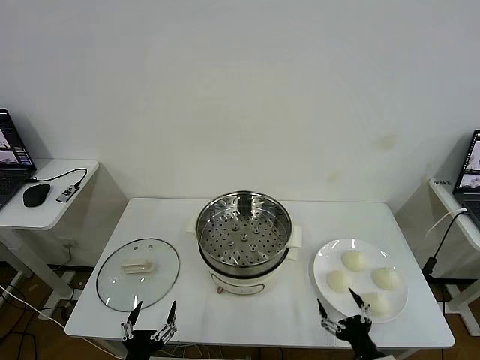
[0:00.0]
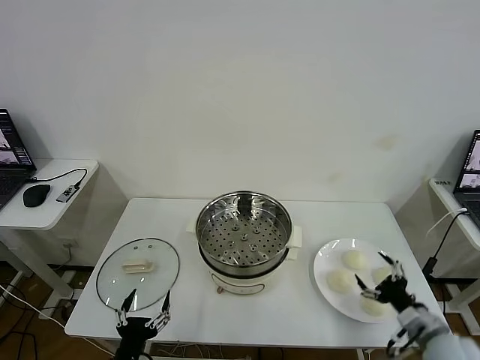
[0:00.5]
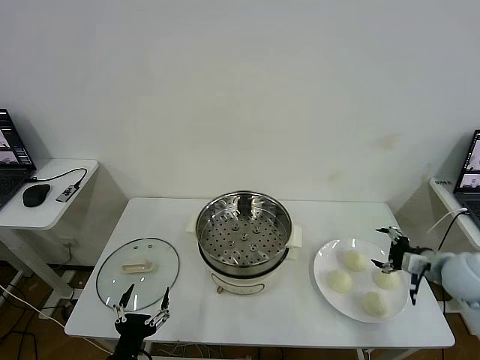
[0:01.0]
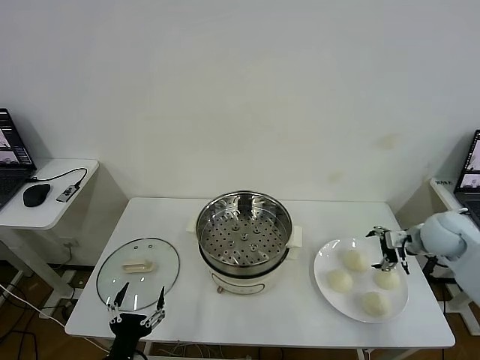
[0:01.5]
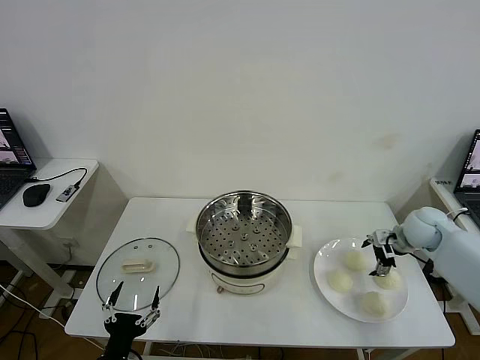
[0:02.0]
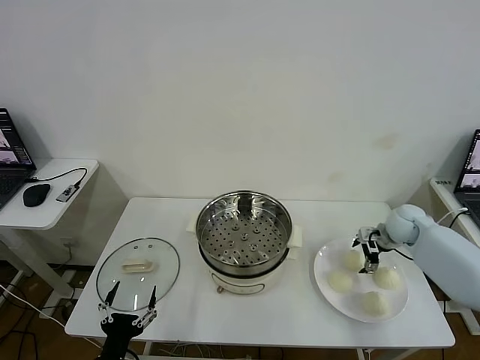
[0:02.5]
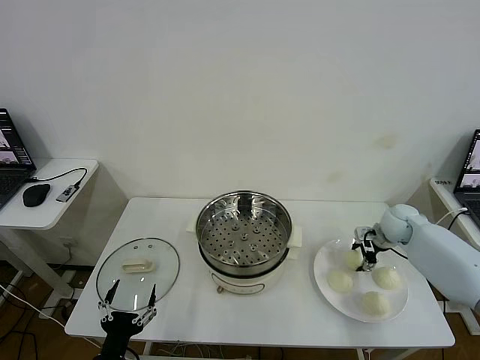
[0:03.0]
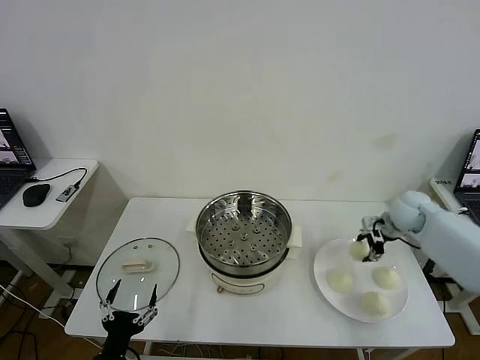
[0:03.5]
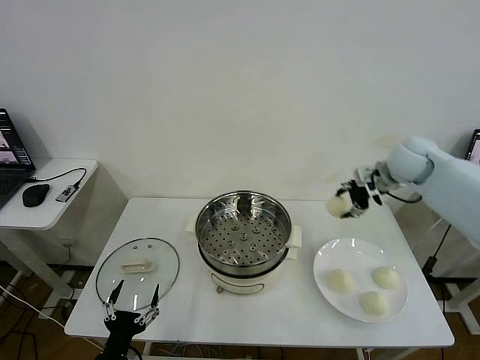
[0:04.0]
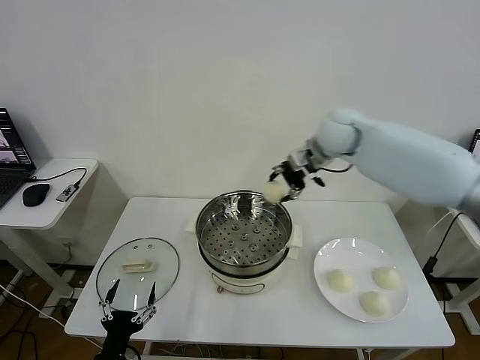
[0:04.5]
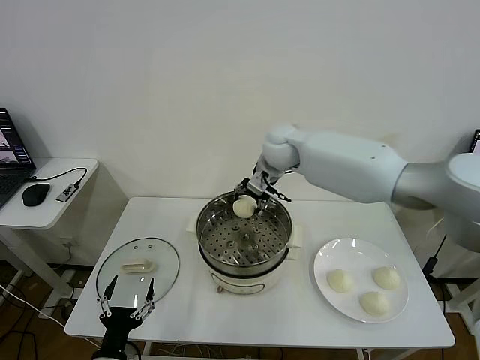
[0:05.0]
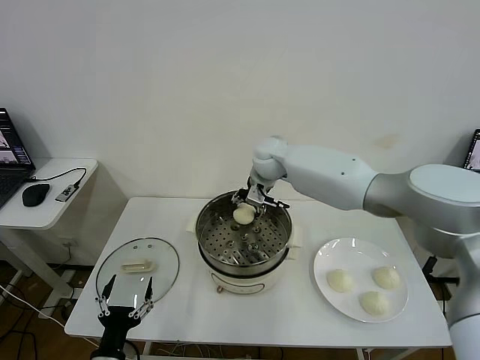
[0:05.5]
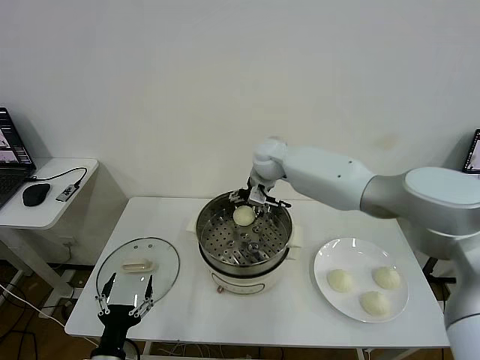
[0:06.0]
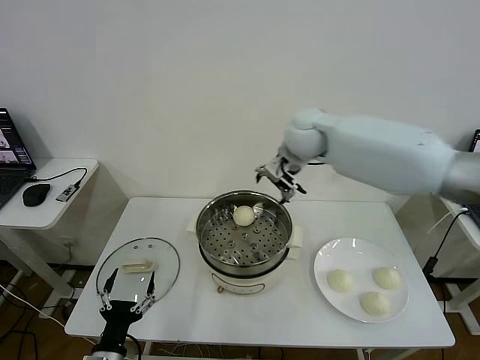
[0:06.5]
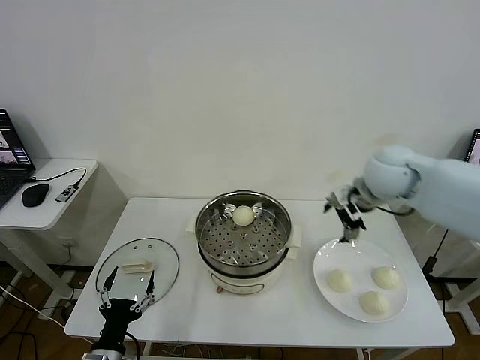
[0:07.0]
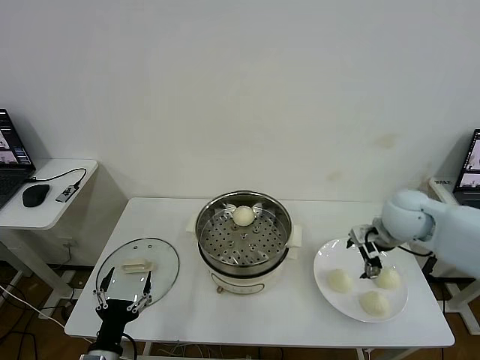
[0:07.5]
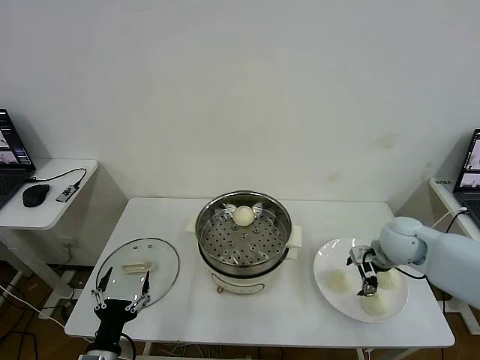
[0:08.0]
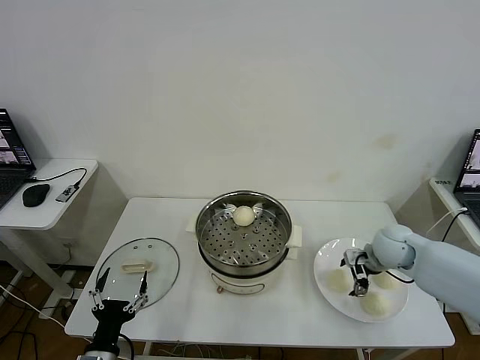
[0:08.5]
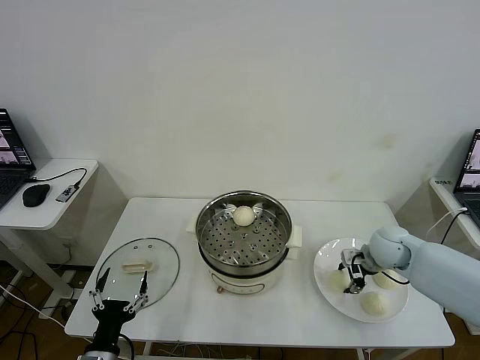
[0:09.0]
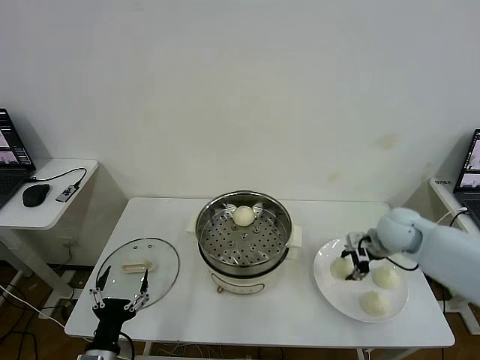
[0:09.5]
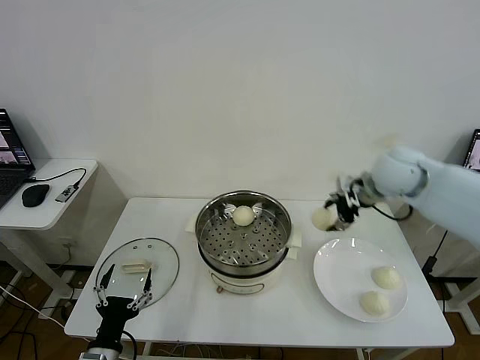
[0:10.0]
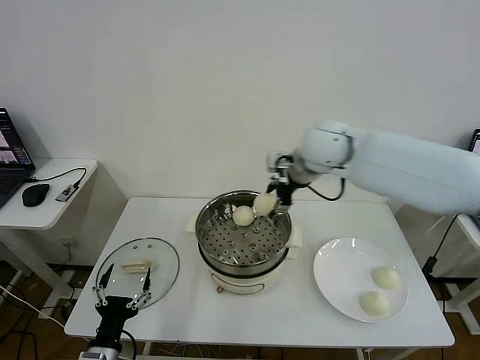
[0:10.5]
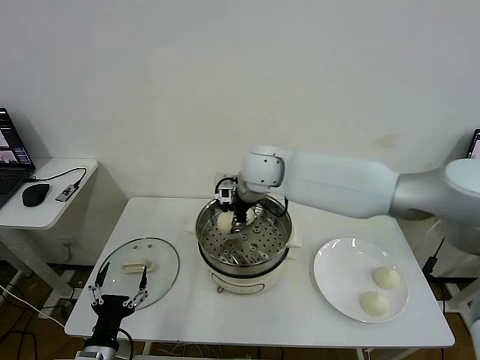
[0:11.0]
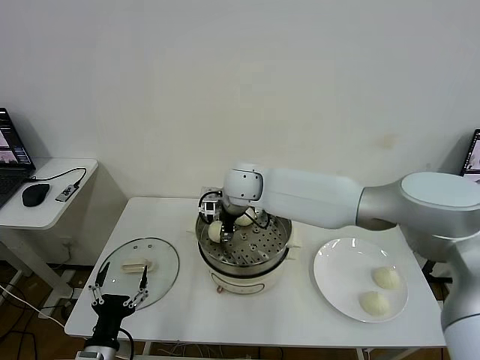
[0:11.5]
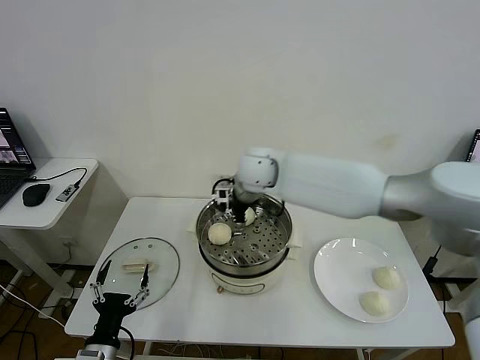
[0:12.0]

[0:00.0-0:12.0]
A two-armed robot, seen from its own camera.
Task of the whole recording: take steamed baozi put them in steamer then cover it.
Step, 0:00.0 to 0:03.0: Grasp the baozi in the plate with right gripper.
Step, 0:03.5 to 0:06.0: Place the baozi on the steamer with right gripper.
Step, 0:06.5 to 0:09.0: Grasp the baozi in the plate with right gripper.
Step, 0:09.5 to 0:11.5: Place the baozi on the steamer with right gripper.
0:02.0 to 0:04.0: The right gripper is displaced upward and to the left by about 20 cm, and closes.
0:04.0 to 0:06.0: The right gripper moves to the left, some 25 cm, and opens up.
0:06.0 to 0:08.0: The right gripper is displaced to the right, backward and downward by some 35 cm.
0:08.0 to 0:10.0: The right gripper travels upward by roughly 15 cm, and closes up.
0:10.0 to 0:12.0: The right gripper moves to the left, some 25 cm, and opens.

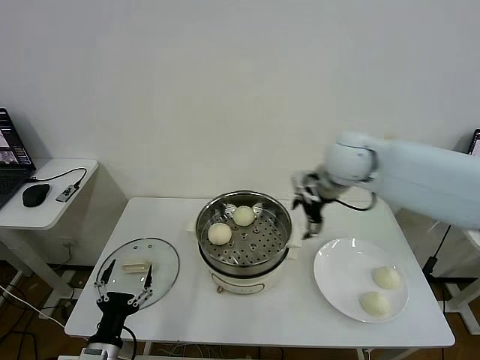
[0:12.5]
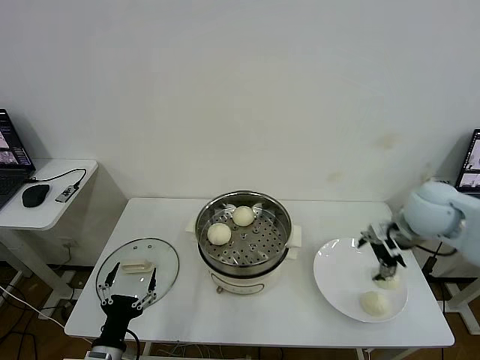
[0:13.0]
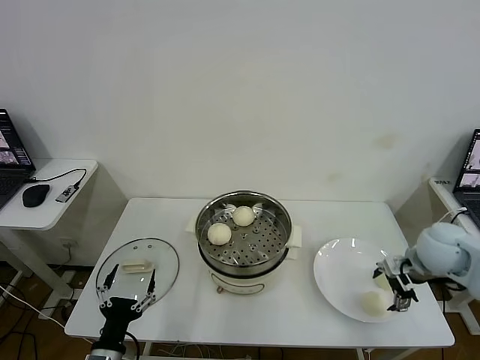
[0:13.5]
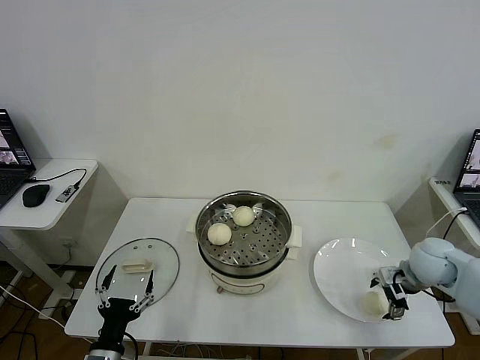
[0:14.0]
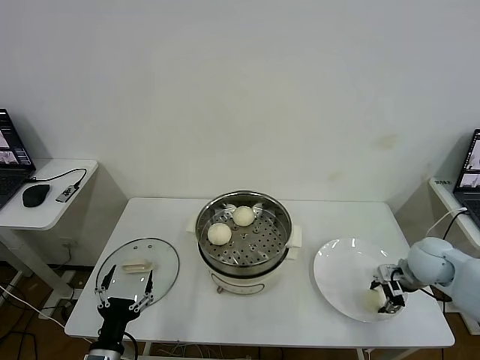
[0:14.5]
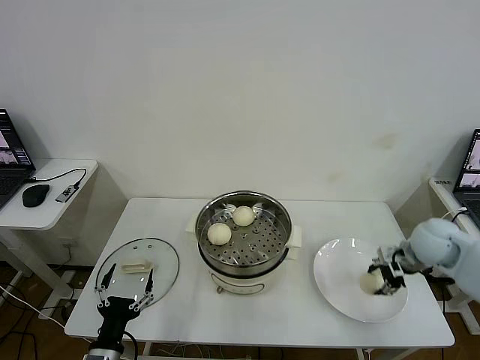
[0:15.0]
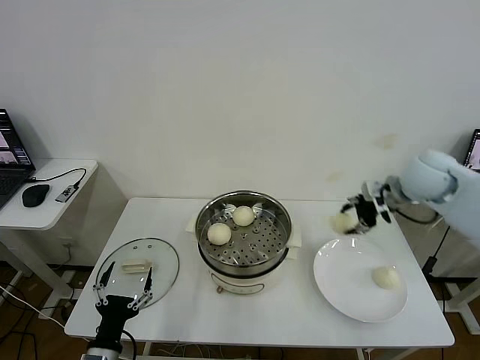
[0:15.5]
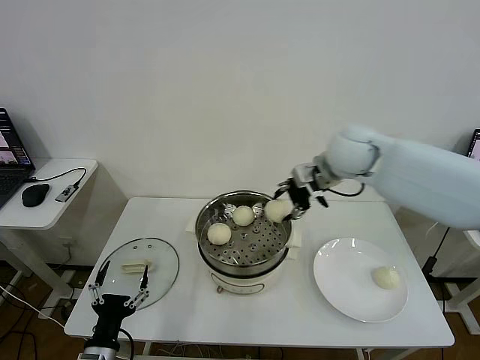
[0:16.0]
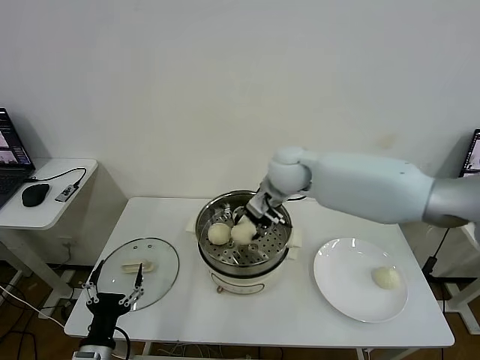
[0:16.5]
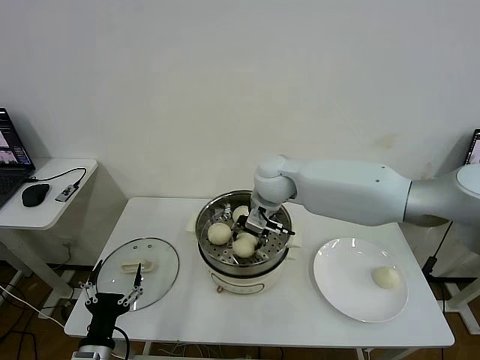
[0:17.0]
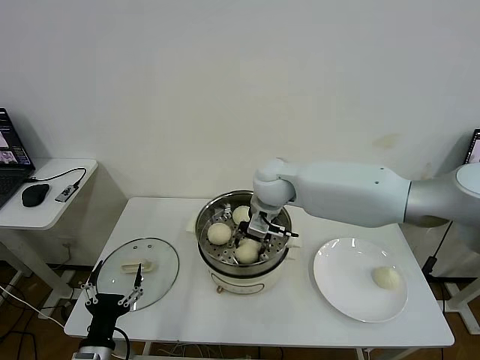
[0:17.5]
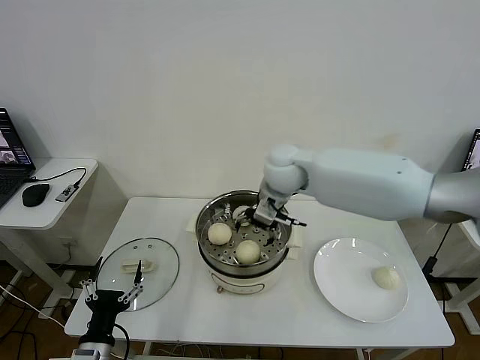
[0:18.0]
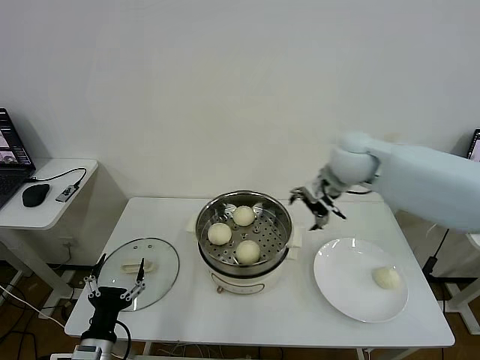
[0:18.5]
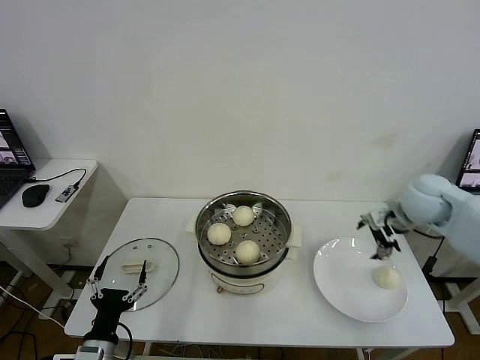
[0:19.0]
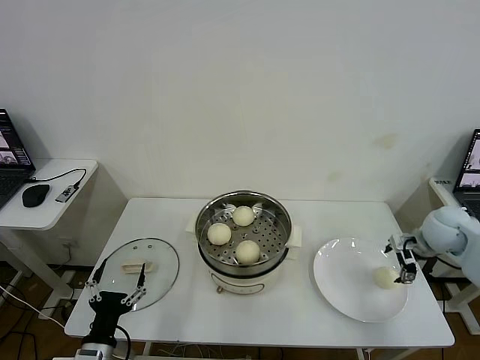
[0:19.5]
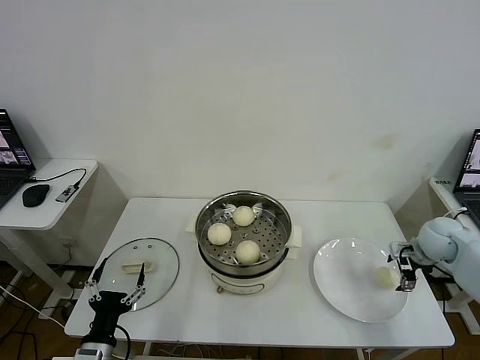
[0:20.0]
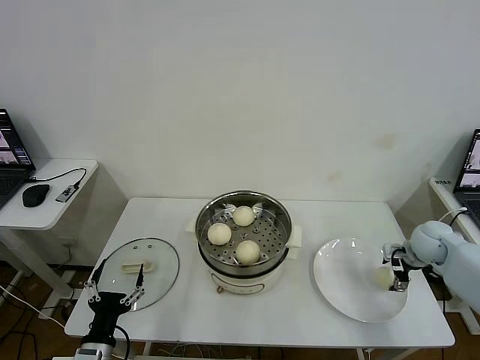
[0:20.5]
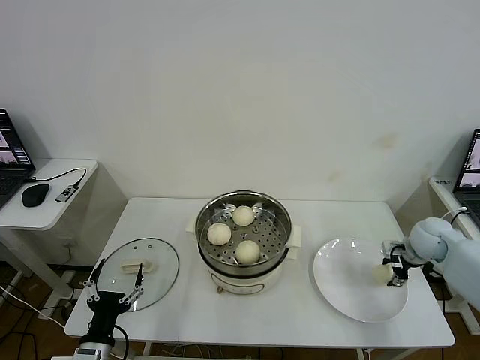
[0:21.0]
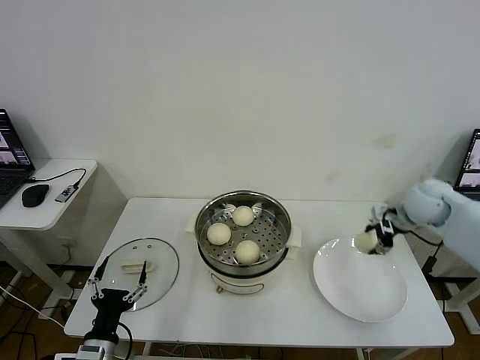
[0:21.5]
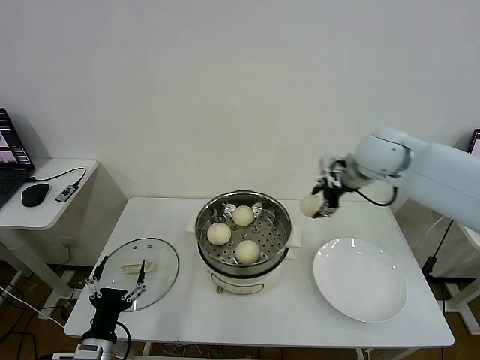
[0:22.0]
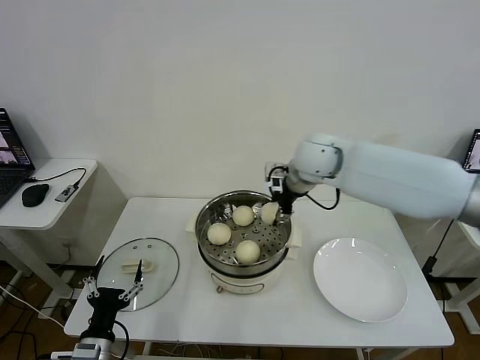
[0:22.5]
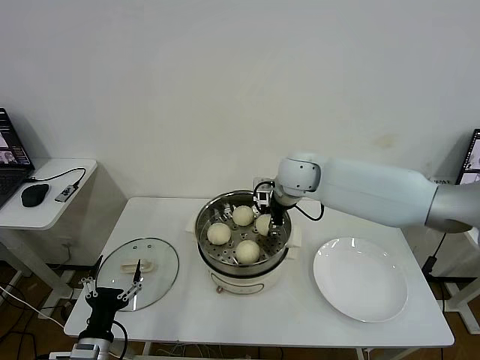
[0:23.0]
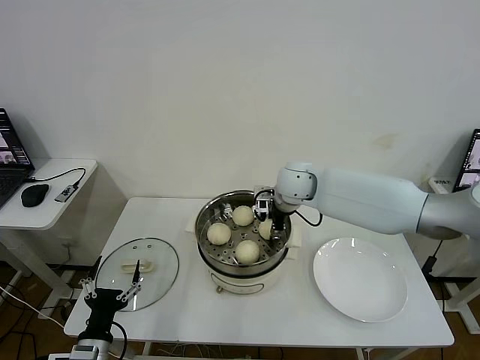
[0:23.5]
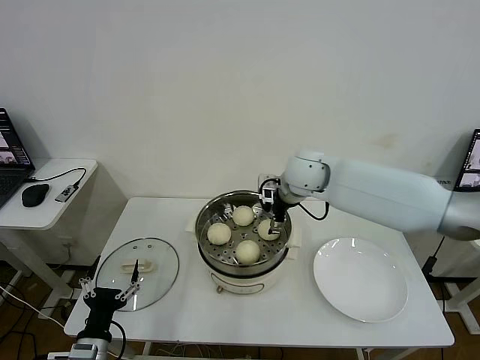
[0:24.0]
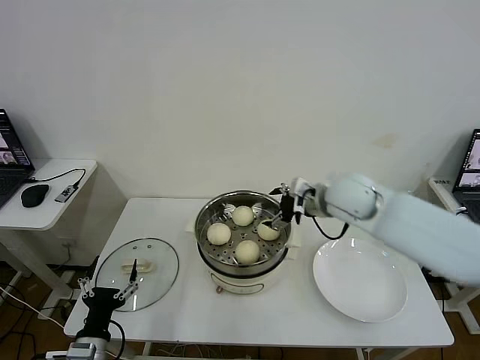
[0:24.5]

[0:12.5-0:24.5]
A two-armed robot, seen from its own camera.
Task of the whole recording: take steamed baozi put them in steamer then cover it.
Step, 0:12.5 to 0:14.5: Grasp the baozi in the plate with right gripper.
Step, 0:15.0 to 0:17.5: Place the baozi on the steamer with right gripper.
Step, 0:18.0 to 0:21.0: Grasp the baozi in the plate with right gripper.
Step, 0:21.5 to 0:23.5: Place the baozi on the steamer with right gripper.
0:12.5 to 0:14.5: The right gripper is displaced downward, to the right and backward by about 30 cm, and closes up.
0:14.5 to 0:16.5: The right gripper travels to the left and upward by about 35 cm.
0:16.5 to 0:18.5: The right gripper moves to the right, some 15 cm, and opens its fingers.
0:18.5 to 0:20.5: The right gripper goes some 30 cm to the right and downward.
0:20.5 to 0:22.5: The right gripper moves to the left and upward, some 35 cm, and closes up.
0:22.5 to 0:24.5: The right gripper goes approximately 10 cm to the right, backward and downward, and opens up.

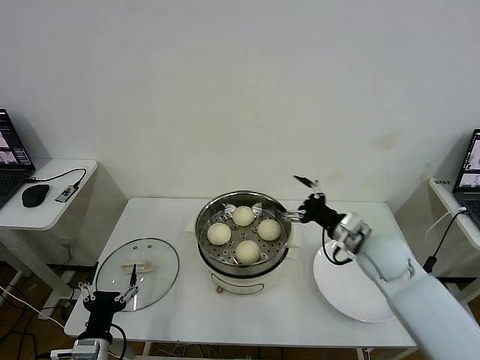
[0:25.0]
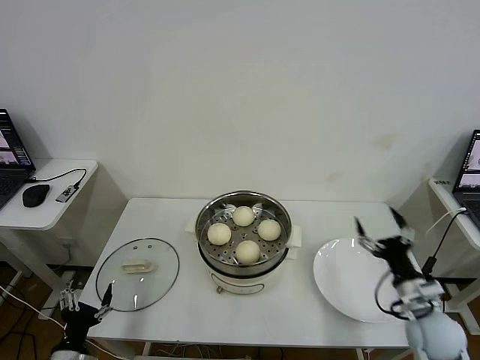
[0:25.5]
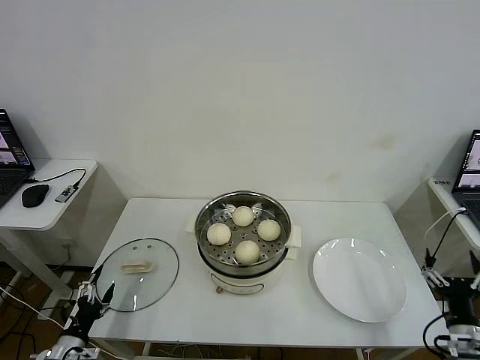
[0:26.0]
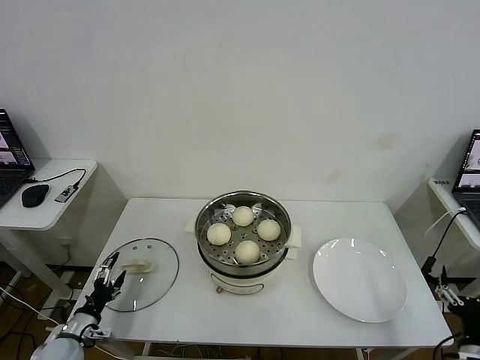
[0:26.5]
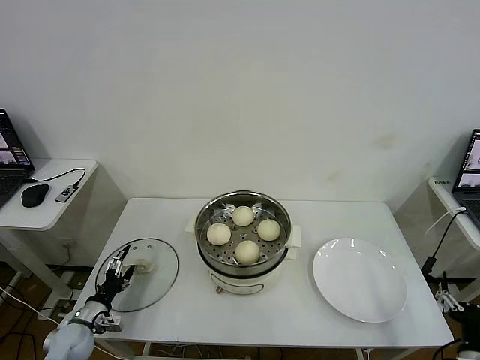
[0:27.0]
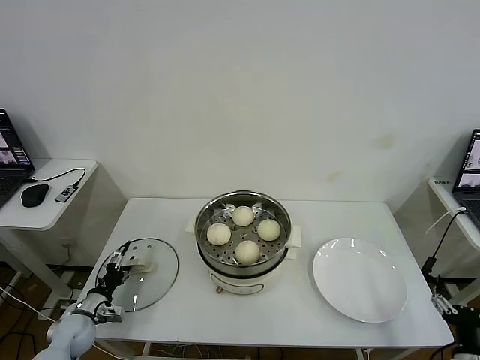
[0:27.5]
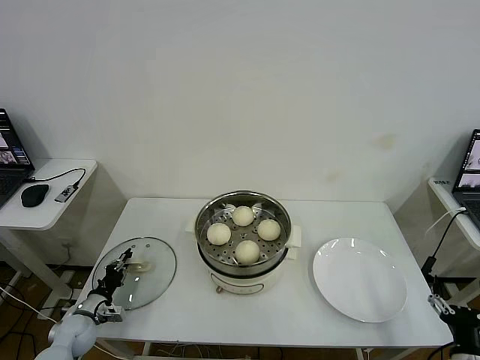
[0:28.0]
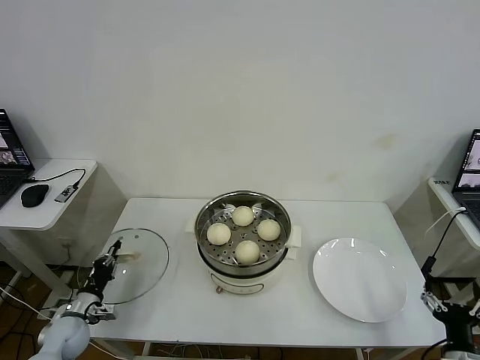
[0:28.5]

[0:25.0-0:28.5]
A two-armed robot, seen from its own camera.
Task of the whole recording: take steamed baozi put them in steamer then cover it.
Step, 0:25.0 to 0:28.0: Grasp the pot lid with left gripper.
0:25.0 to 0:27.0: The left gripper travels forward, to the left and downward by roughly 20 cm. The right gripper is displaced backward, to the right and downward by some 35 cm.
0:27.0 to 0:28.5: The left gripper closes.
